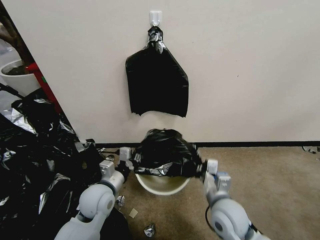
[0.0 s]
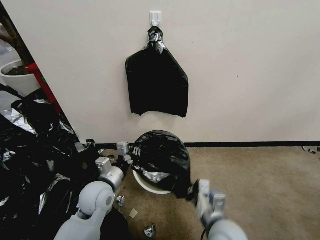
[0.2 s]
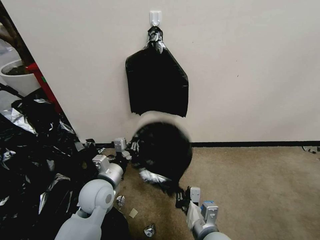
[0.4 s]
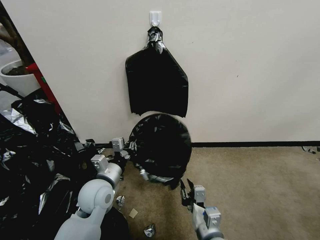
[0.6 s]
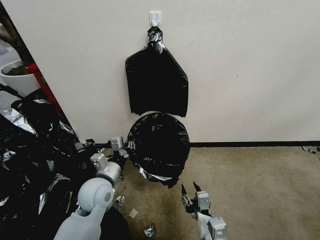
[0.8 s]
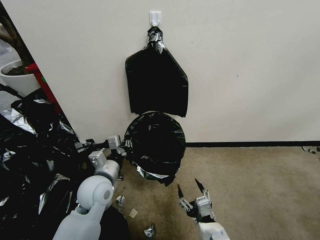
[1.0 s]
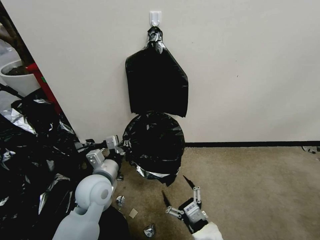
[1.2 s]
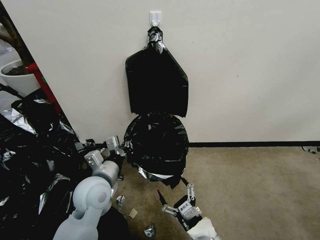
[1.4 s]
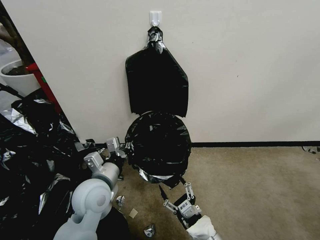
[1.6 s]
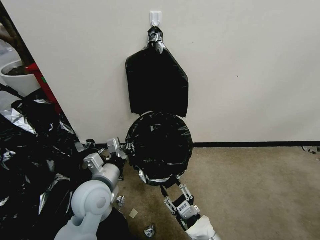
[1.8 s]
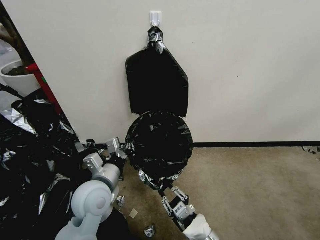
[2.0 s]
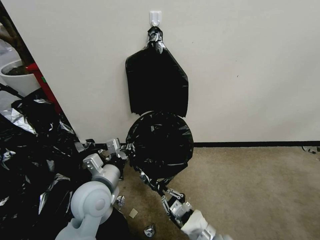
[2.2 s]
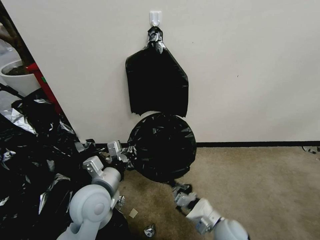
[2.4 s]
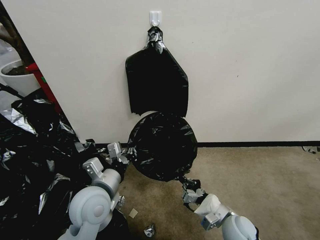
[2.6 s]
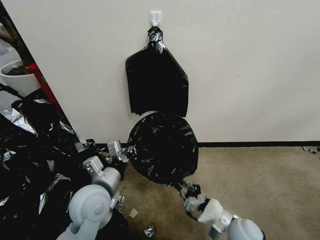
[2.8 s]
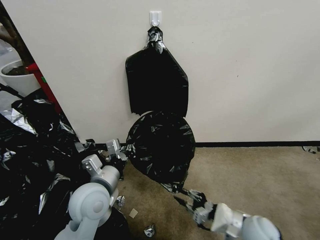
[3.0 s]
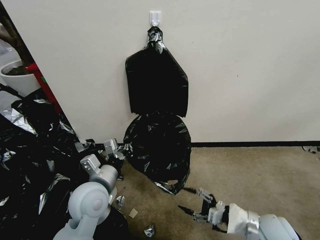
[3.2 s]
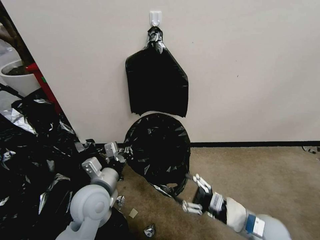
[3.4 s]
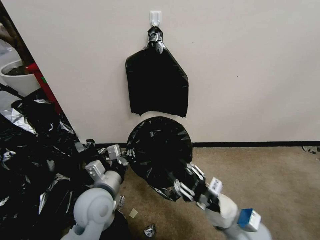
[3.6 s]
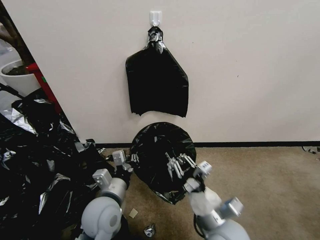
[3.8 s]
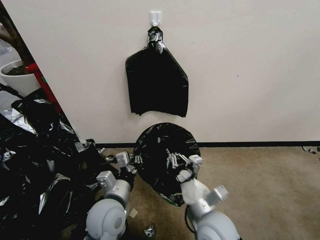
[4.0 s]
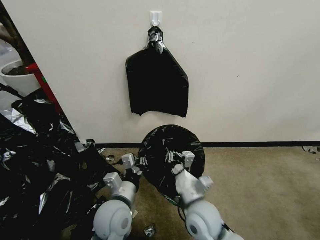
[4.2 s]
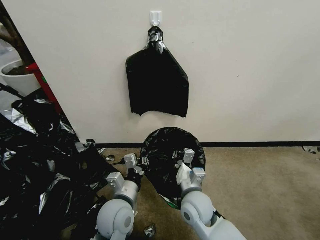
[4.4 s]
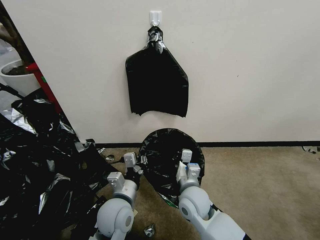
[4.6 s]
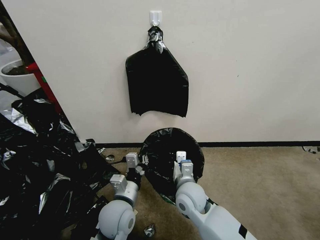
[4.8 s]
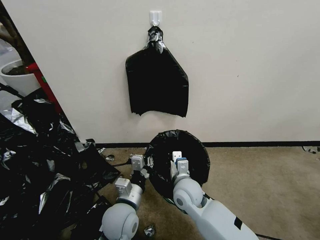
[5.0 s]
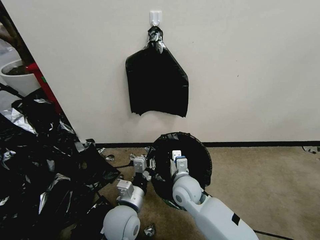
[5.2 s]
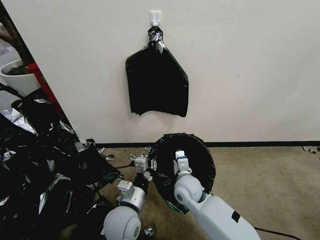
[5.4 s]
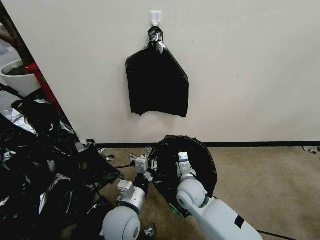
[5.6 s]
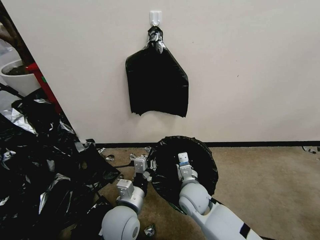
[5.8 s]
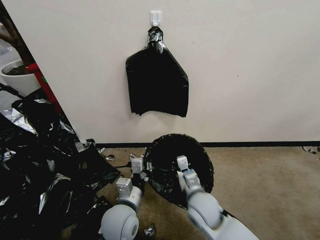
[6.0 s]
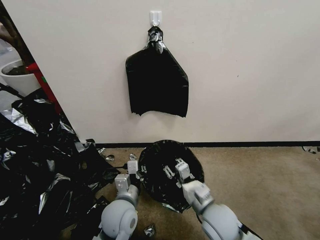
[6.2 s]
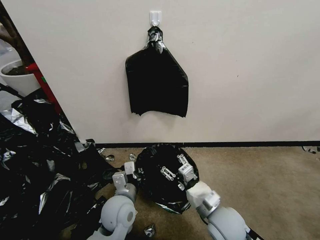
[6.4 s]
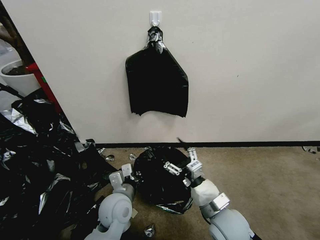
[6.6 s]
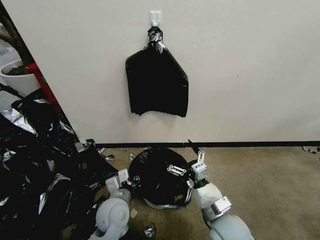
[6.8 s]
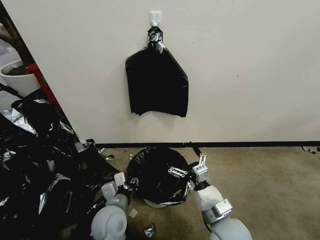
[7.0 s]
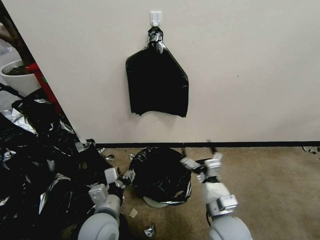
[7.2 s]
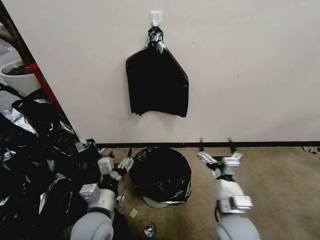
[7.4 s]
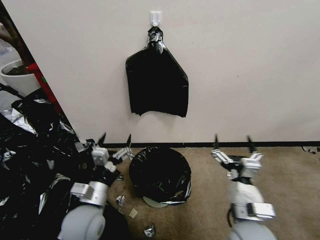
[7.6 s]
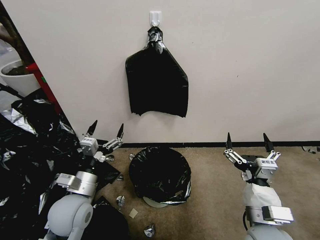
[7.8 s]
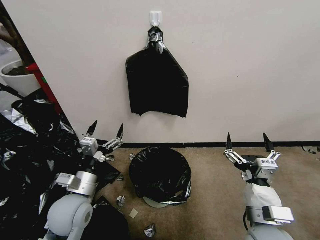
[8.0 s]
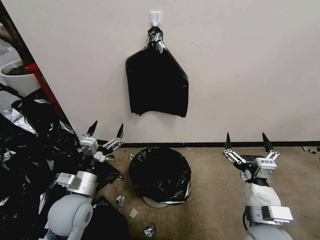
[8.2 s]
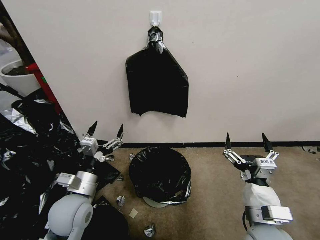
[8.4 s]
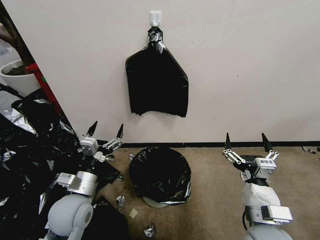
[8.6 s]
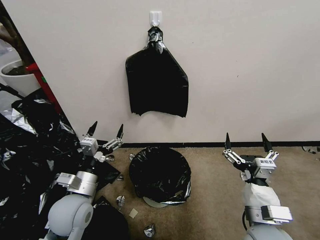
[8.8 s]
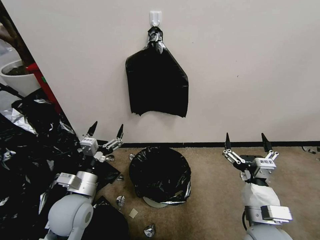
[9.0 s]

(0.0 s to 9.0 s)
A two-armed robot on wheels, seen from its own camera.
Task of the whole recording: Place a trash bag onto the trash bin.
0.0 s - 1.6 s: The left gripper moves upward, roughly 5 cm. Meanwhile the right gripper moves backward and downward, about 15 cm, and opens its fingers.
1.6 s - 3.0 s: The right gripper shifts roughly 15 cm to the right and forward, and closes and opens again.
3.0 s - 4.4 s: The right gripper heads to the left, covering approximately 20 cm, and closes its fingers, while the left gripper is displaced downward and to the right by some 10 cm.
6.0 s - 7.6 s: The left gripper moves to the left, approximately 10 cm, and opens up. The right gripper shifts about 15 cm backward, to the right and upward, and opens.
7.6 s - 9.0 s: The grippers make only small movements.
